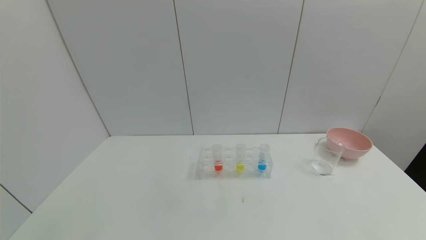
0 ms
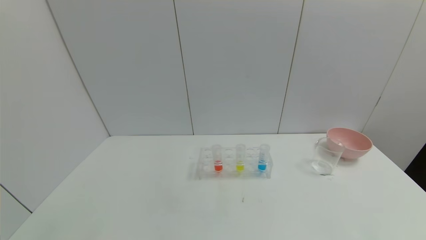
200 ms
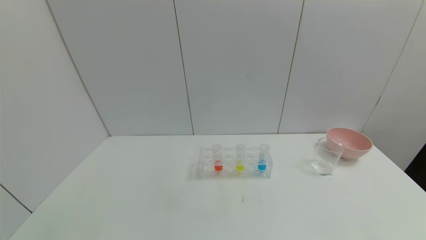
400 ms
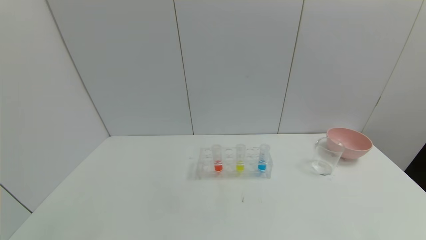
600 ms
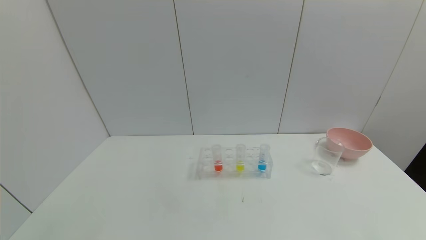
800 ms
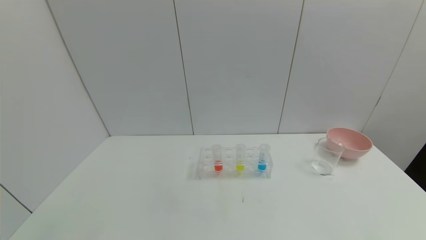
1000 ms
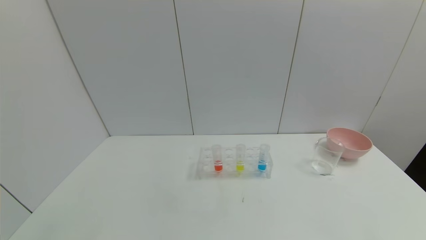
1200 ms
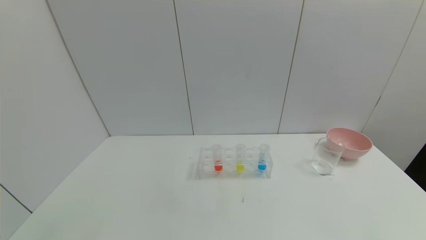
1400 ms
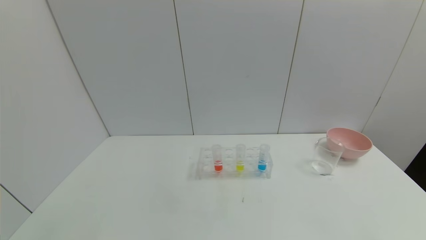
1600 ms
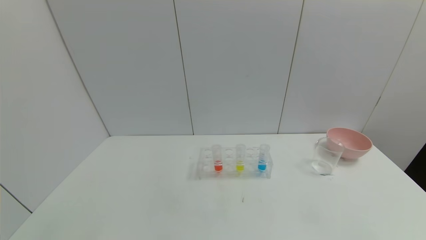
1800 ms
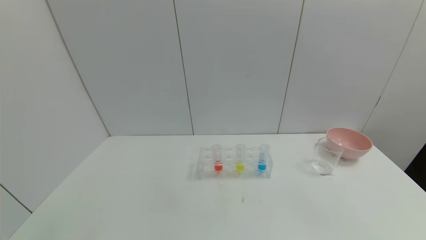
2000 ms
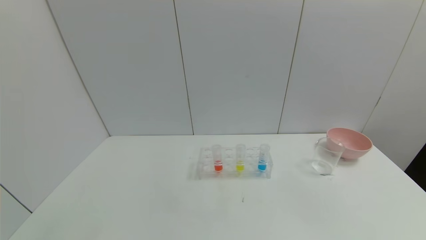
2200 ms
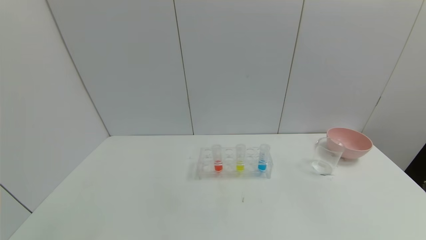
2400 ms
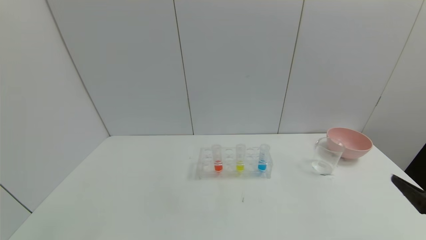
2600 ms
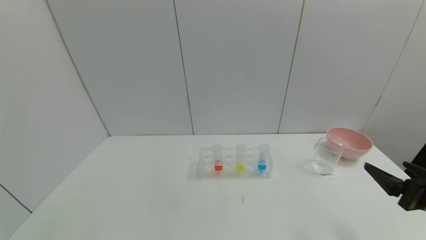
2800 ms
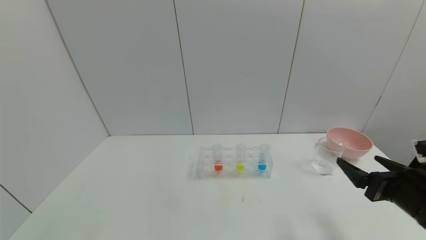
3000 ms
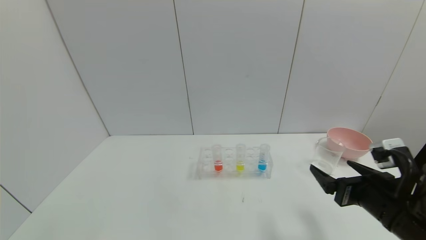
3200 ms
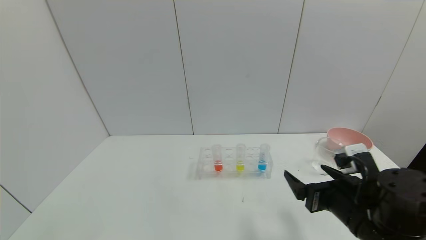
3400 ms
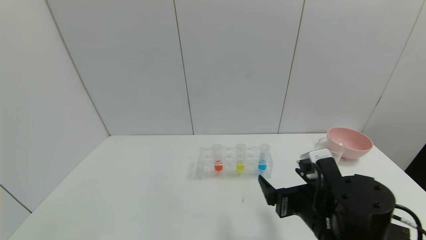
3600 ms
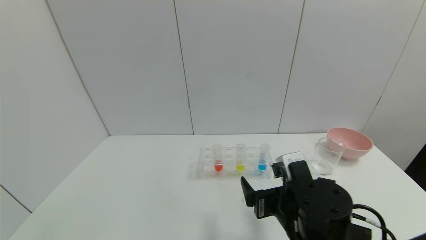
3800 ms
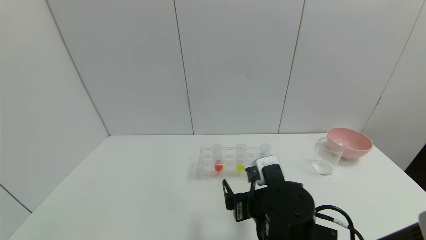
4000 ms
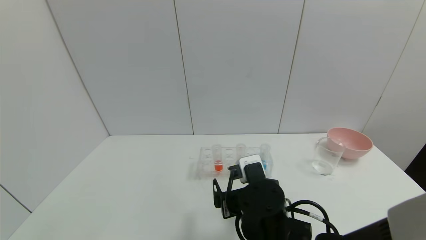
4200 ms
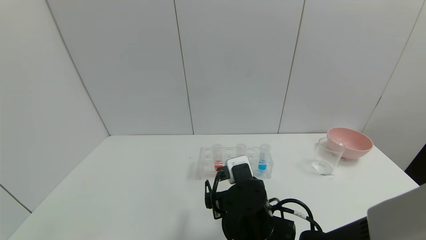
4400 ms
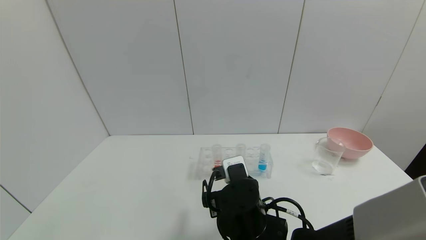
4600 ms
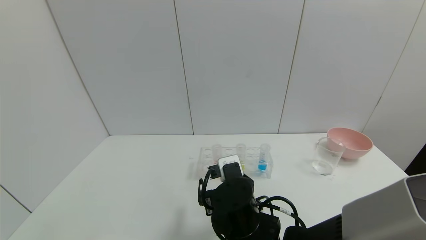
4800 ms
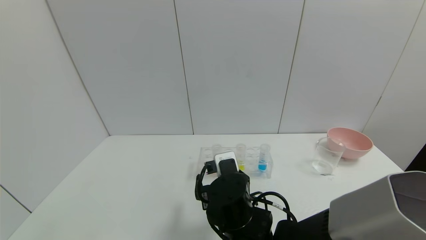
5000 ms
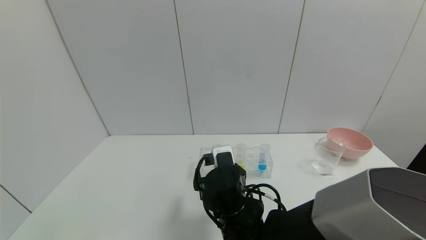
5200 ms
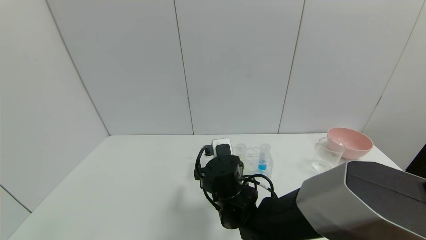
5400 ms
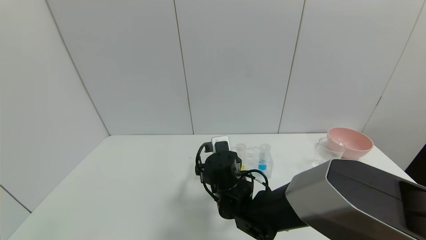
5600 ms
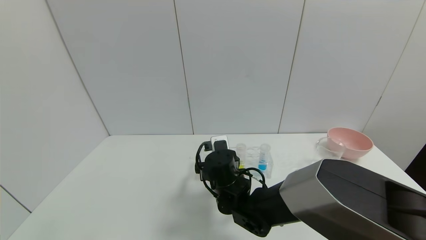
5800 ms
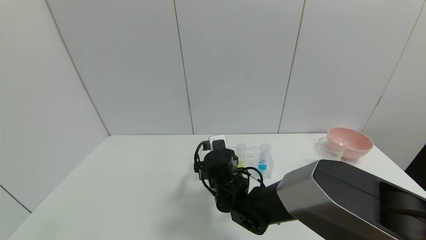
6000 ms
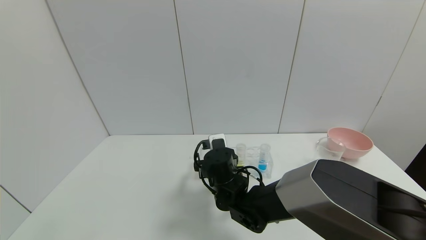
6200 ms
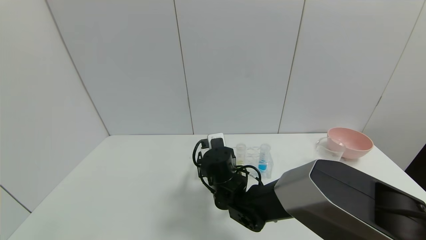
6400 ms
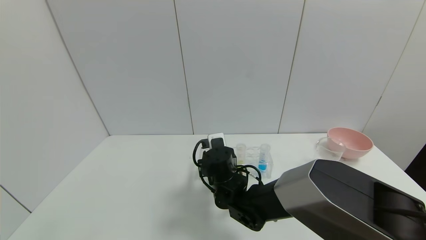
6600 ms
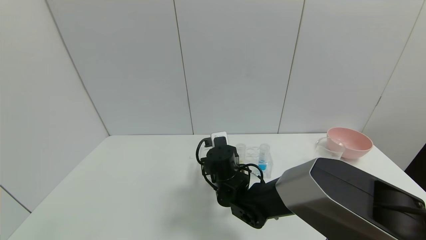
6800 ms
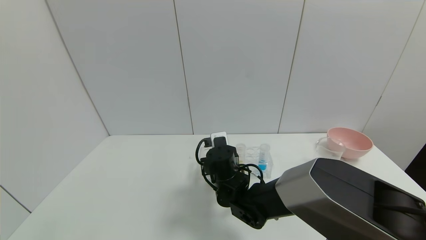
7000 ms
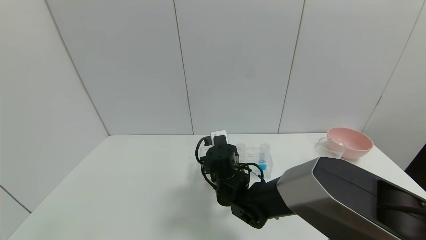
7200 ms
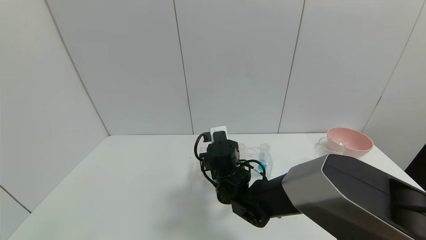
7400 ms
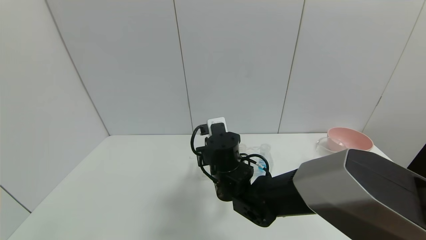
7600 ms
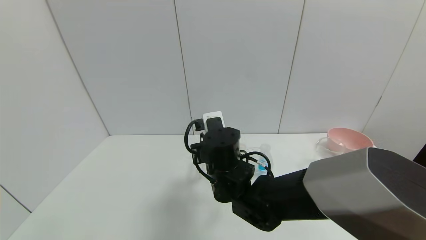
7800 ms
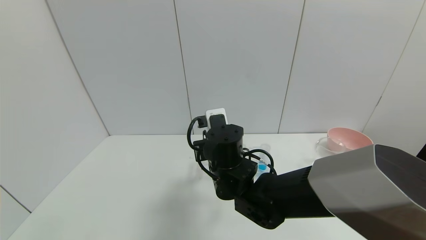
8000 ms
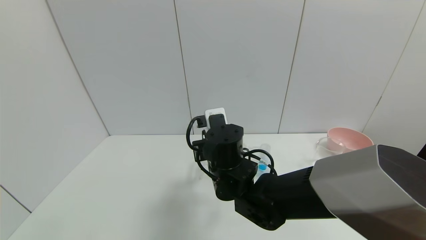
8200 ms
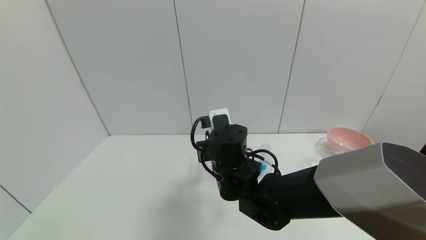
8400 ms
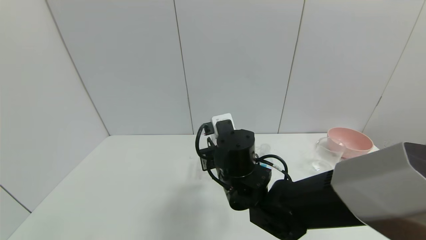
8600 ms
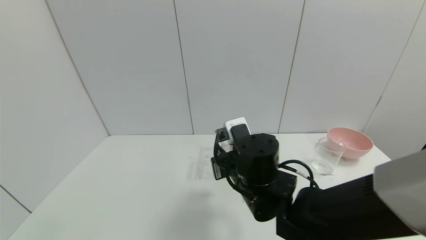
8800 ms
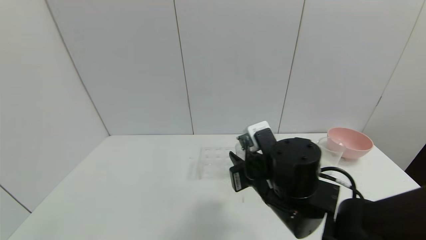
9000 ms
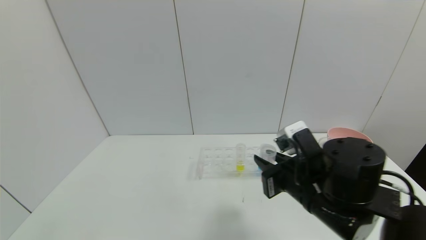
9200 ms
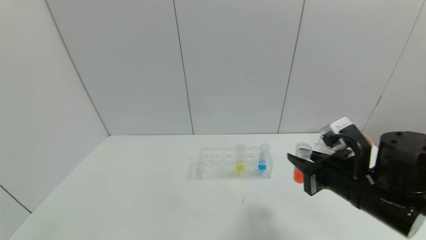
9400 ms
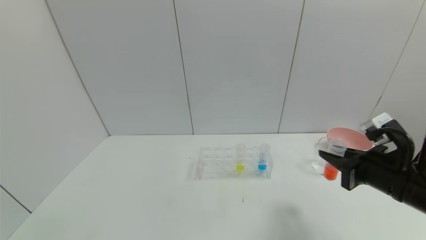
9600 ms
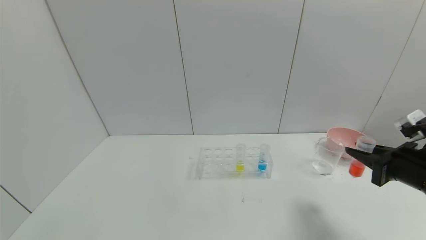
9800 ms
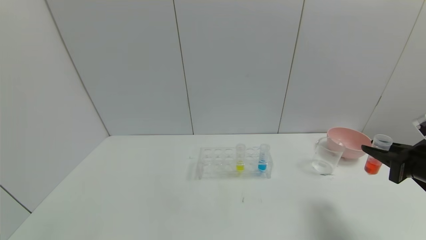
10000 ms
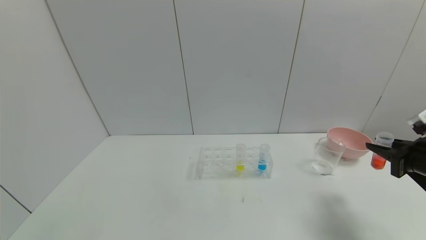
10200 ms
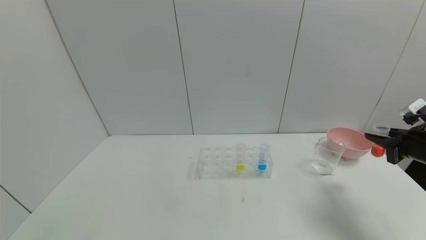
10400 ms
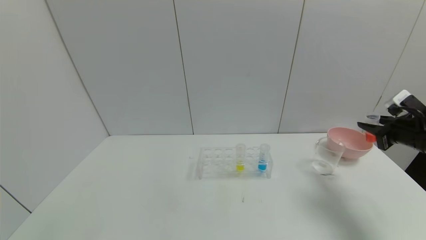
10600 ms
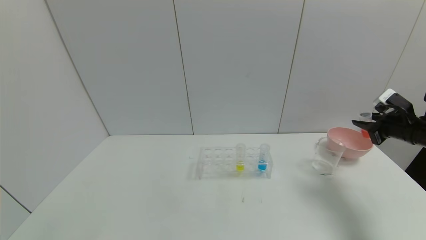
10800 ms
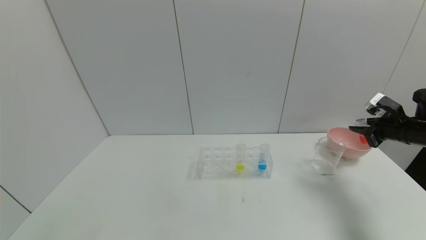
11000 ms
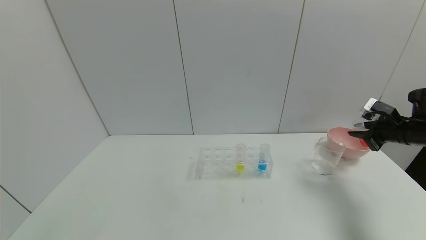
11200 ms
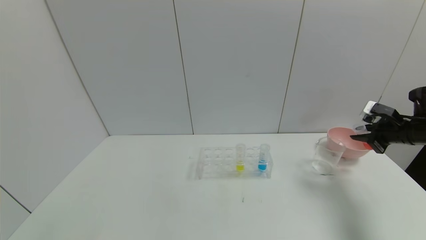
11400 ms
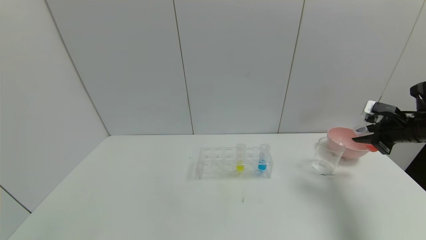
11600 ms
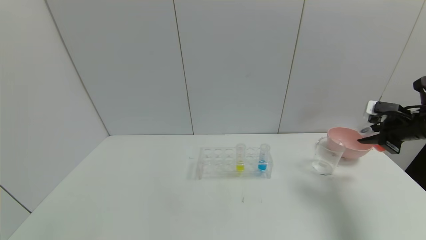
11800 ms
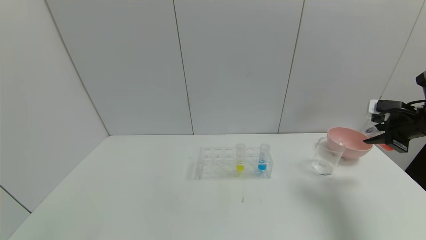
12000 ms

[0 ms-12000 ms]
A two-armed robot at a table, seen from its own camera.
Task of the whole recording: pick up the test tube with red pigment and the test tube with blue pigment by grippers and pour them into the container.
Step, 0 ms to 7000 ms: Grasp the red reagent with the right gripper.
1600 ms to 3000 ms: The right gripper travels forward by about 20 cm.
3000 ms to 4400 ms: The right gripper goes some 25 cm to the left.
4400 ms to 6000 ms: The right gripper goes approximately 10 cm forward.
6000 ms to 7600 ms: The right gripper ends up some 5 cm from where it was, and closes.
7600 ms to 9000 ms: The right gripper travels to the right and backward by roughly 15 cm.
9000 ms to 10400 ms: The right gripper is displaced to the right by roughly 35 cm.
10400 ms to 12000 ms: The right gripper moves forward, some 5 cm.

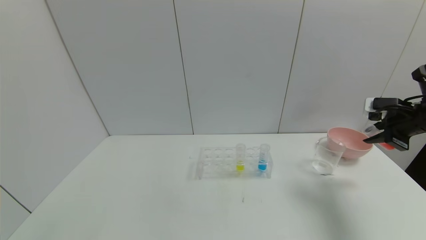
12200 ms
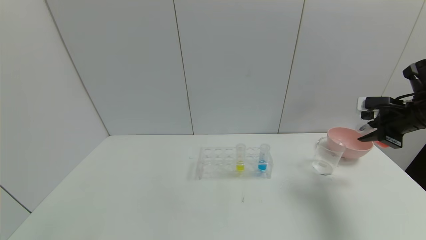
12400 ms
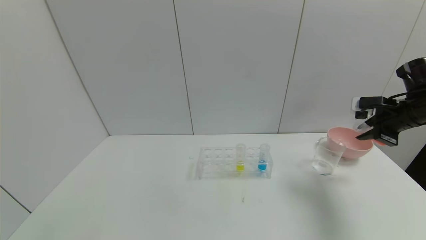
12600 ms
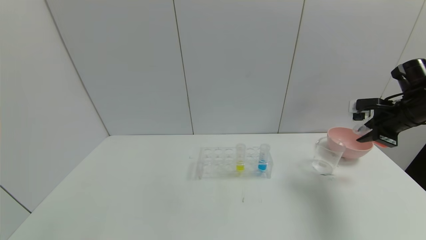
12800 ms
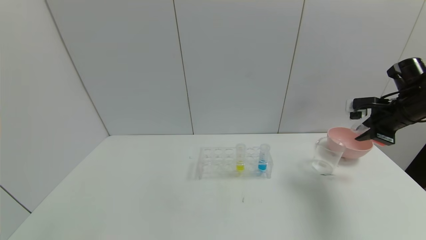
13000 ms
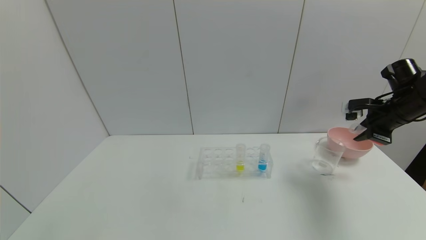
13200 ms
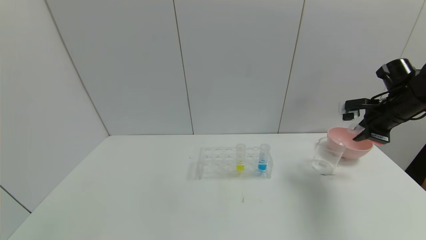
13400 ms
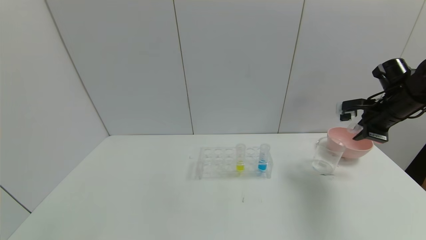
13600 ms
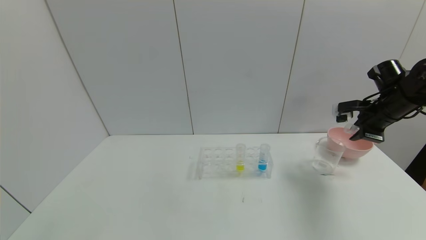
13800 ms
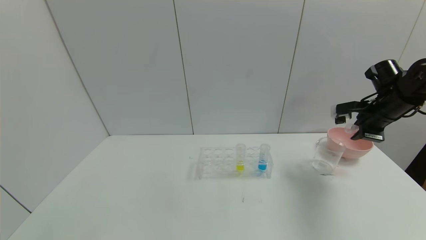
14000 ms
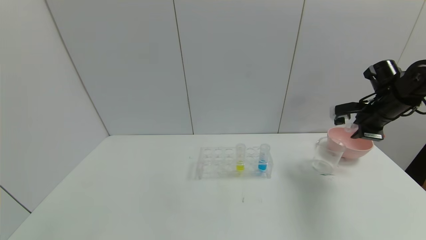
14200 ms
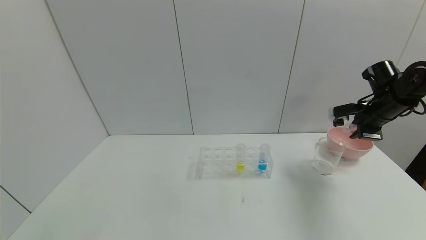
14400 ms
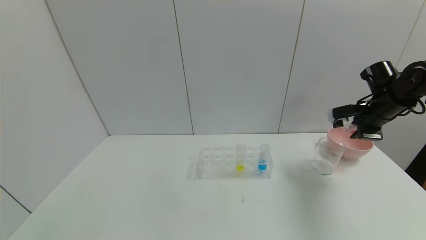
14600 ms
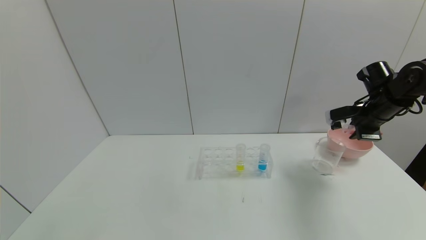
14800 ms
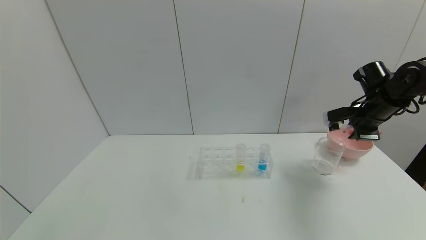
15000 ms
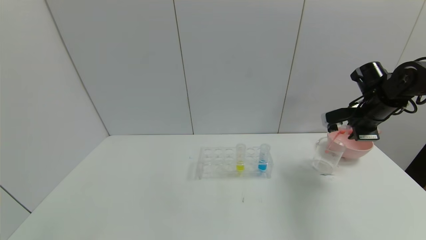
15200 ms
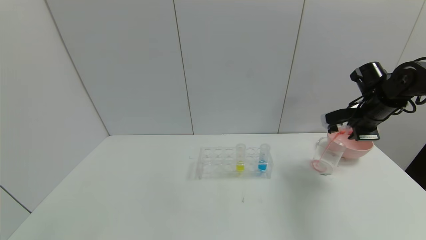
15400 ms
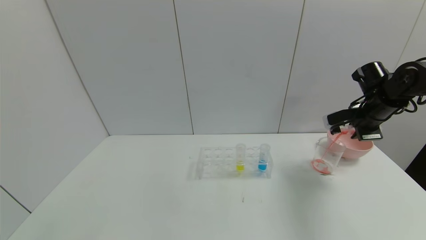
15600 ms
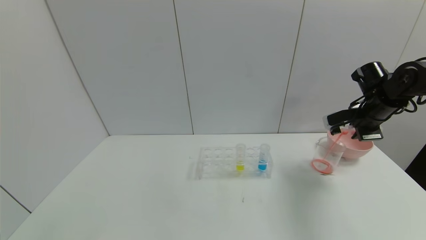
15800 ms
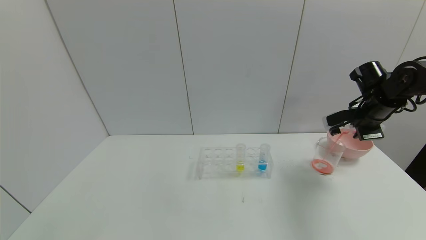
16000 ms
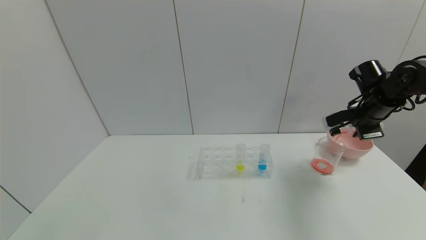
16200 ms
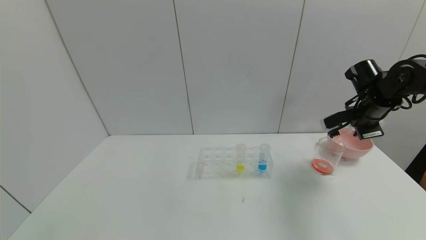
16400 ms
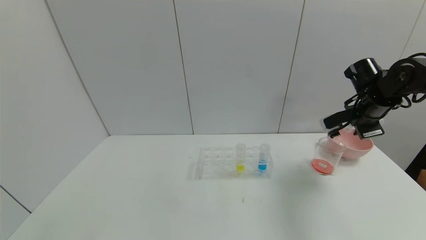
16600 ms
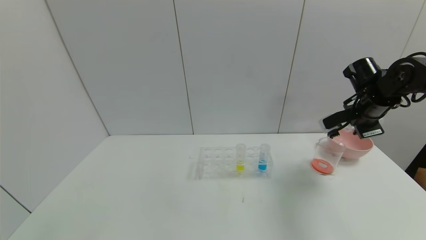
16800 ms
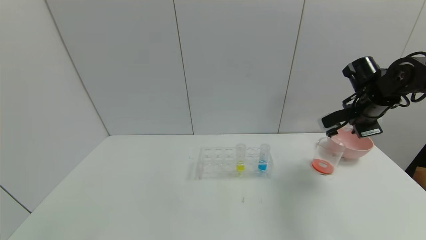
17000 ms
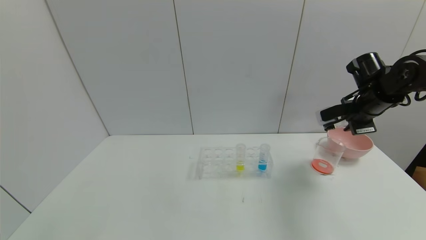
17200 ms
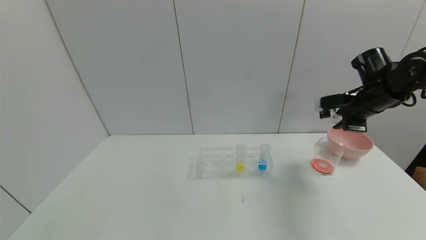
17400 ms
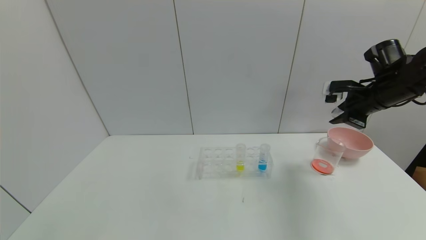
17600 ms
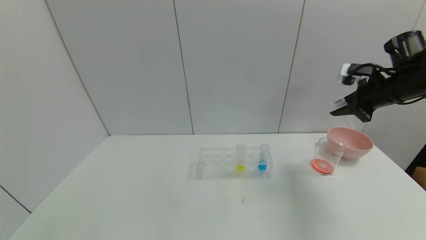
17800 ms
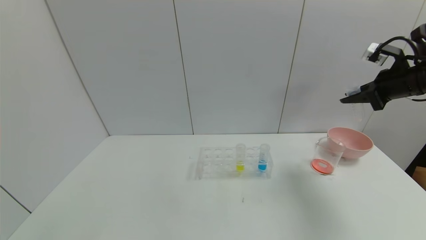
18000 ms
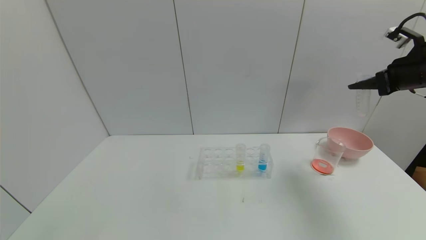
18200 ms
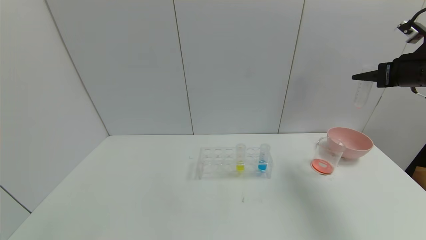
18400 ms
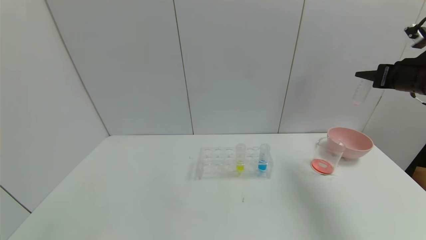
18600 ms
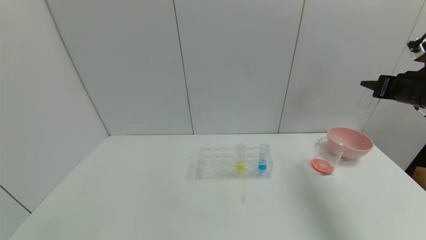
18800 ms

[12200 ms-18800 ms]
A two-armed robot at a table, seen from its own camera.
Task of the whole recording: pick up the test tube with red pigment and the test tube with blue pigment by grippers and pour them into the container.
Step, 12200 ms to 17600 ms: Pour the red reagent into the graduated cylinder with the right gripper.
12200 ms to 13800 ms: The right gripper moves forward, about 5 cm.
13800 ms to 15400 ms: The grippers make only small movements.
15400 ms to 17200 ms: There are only small adjustments of the grippers.
17200 ms to 18800 ms: The right gripper shifts roughly 10 cm to the right and backward.
